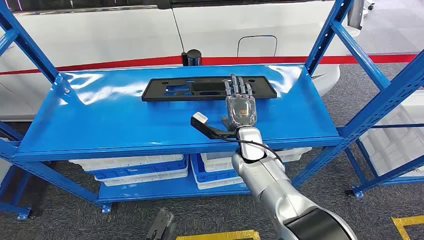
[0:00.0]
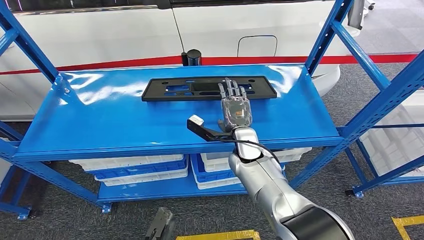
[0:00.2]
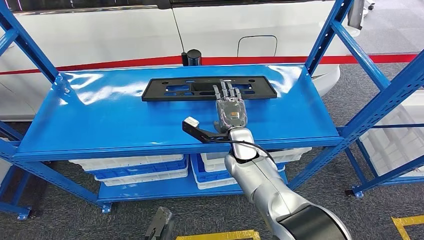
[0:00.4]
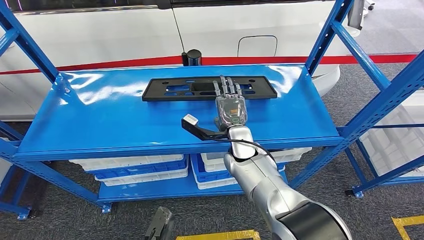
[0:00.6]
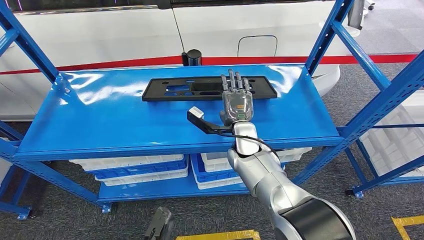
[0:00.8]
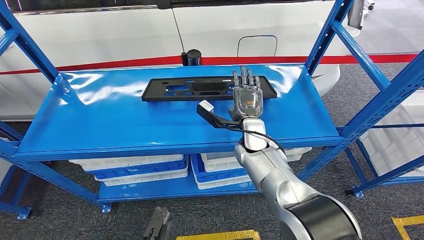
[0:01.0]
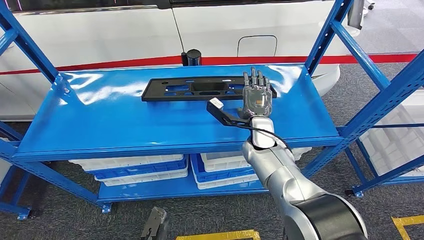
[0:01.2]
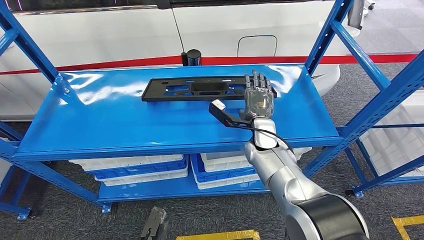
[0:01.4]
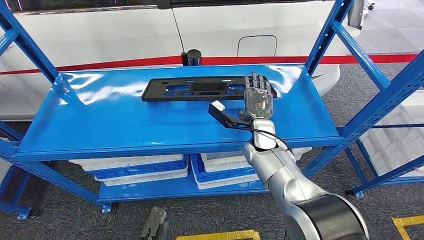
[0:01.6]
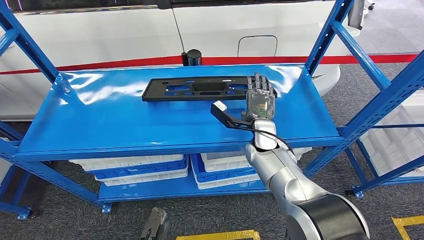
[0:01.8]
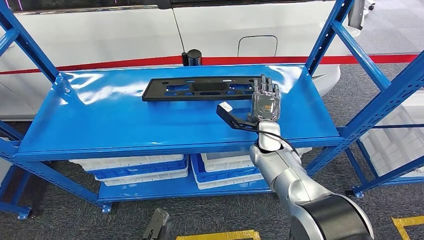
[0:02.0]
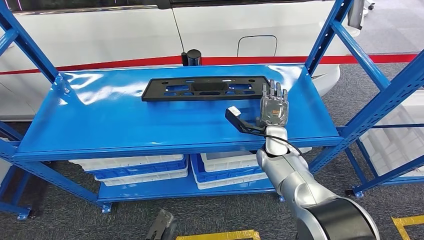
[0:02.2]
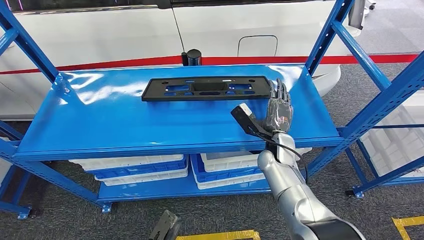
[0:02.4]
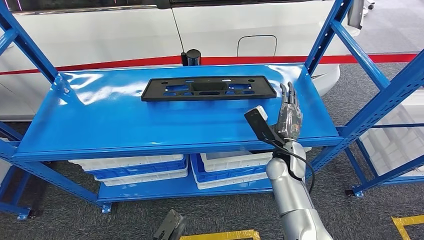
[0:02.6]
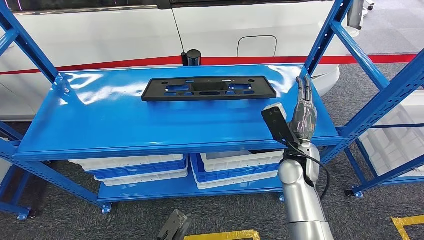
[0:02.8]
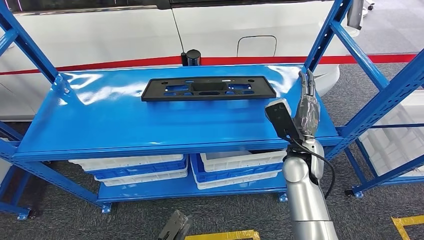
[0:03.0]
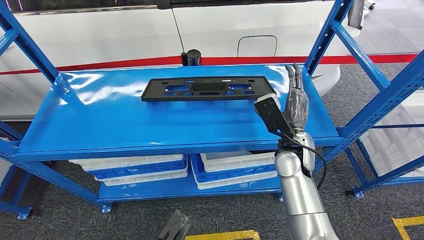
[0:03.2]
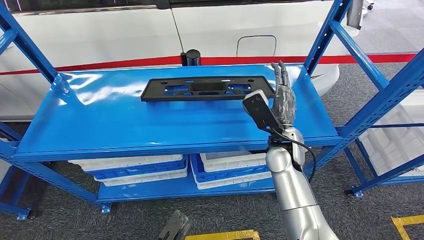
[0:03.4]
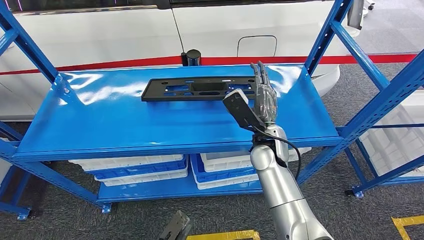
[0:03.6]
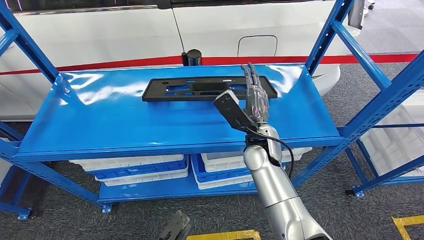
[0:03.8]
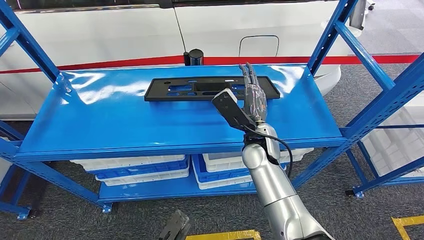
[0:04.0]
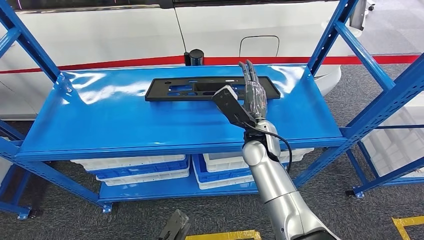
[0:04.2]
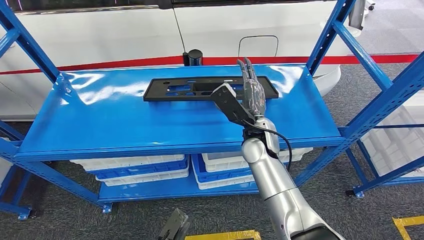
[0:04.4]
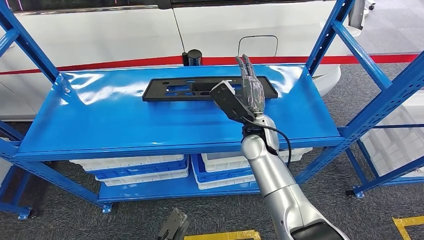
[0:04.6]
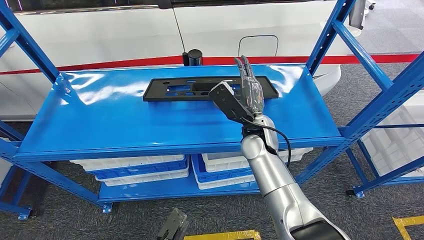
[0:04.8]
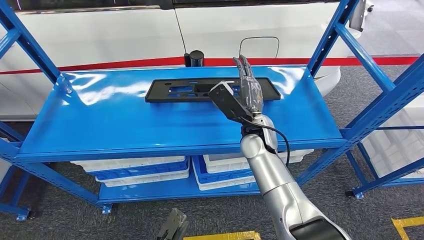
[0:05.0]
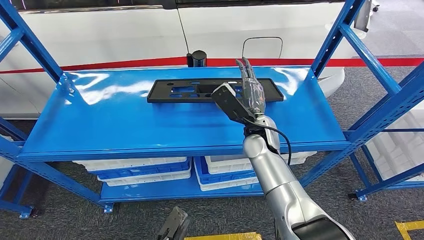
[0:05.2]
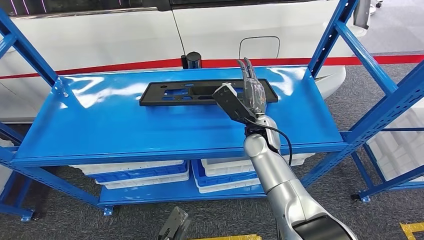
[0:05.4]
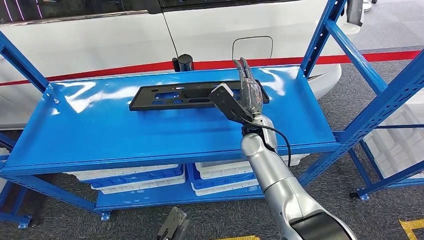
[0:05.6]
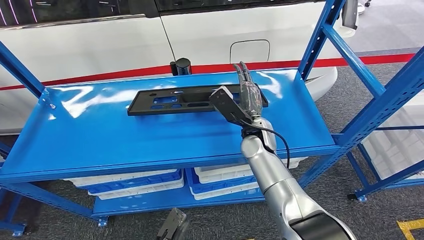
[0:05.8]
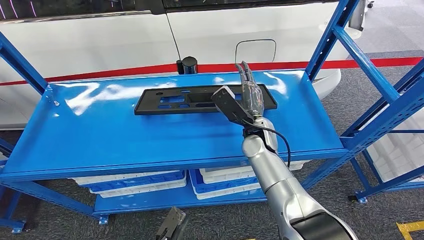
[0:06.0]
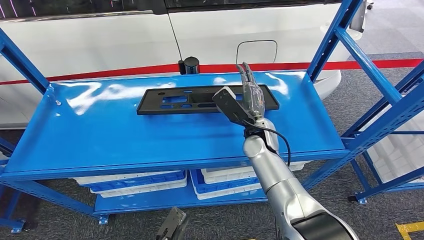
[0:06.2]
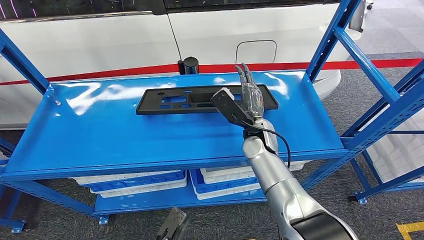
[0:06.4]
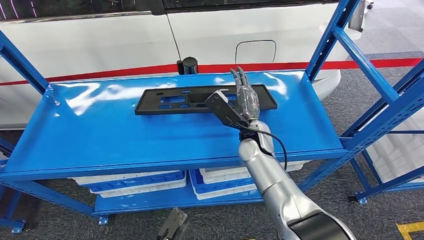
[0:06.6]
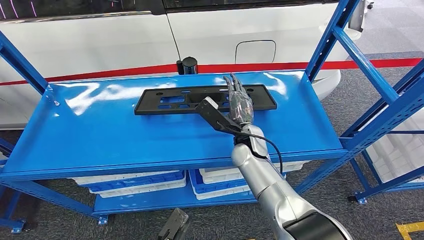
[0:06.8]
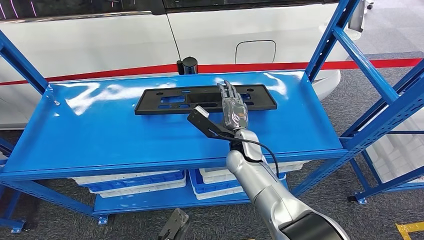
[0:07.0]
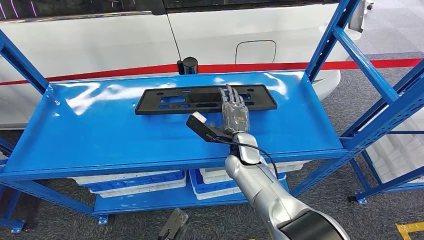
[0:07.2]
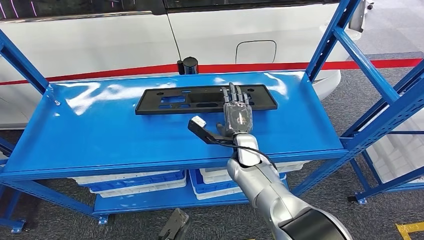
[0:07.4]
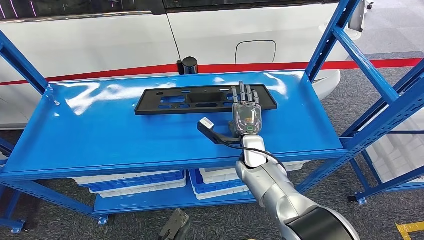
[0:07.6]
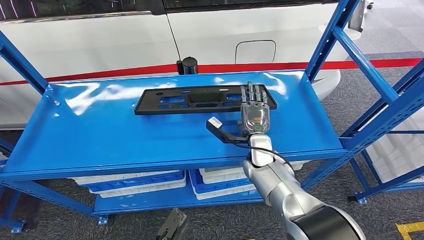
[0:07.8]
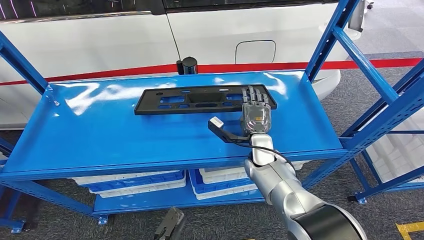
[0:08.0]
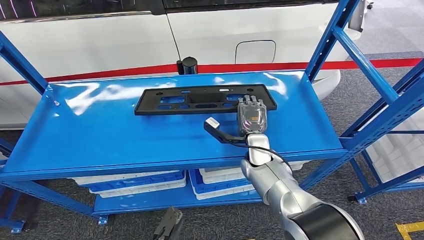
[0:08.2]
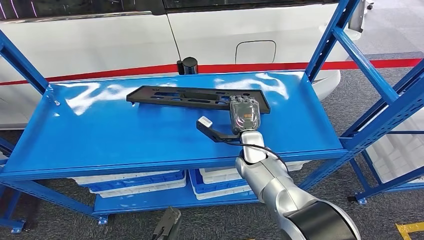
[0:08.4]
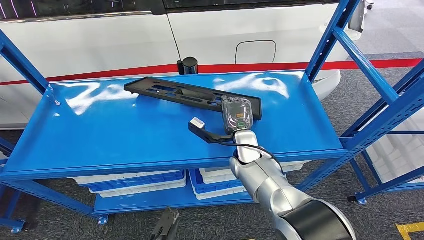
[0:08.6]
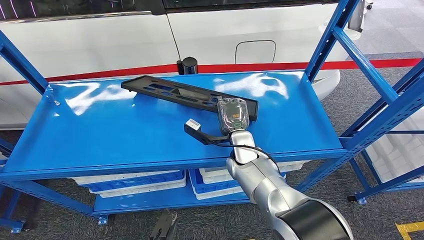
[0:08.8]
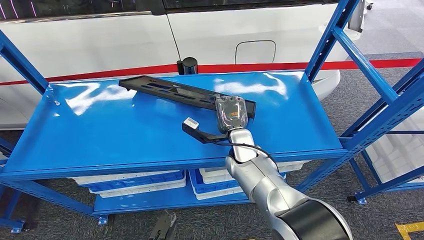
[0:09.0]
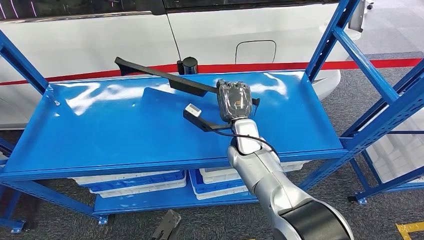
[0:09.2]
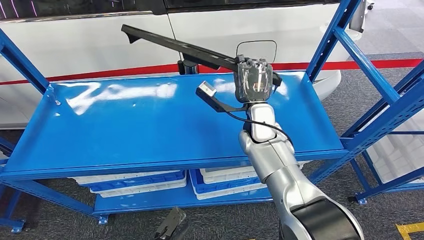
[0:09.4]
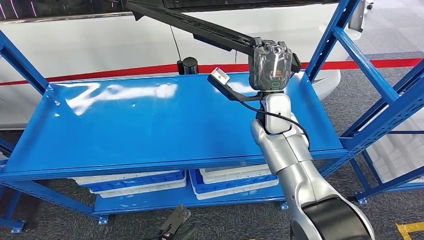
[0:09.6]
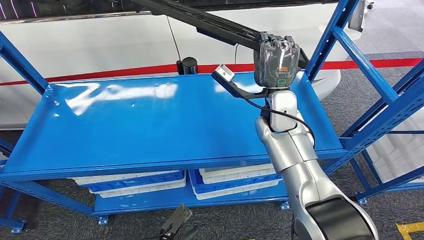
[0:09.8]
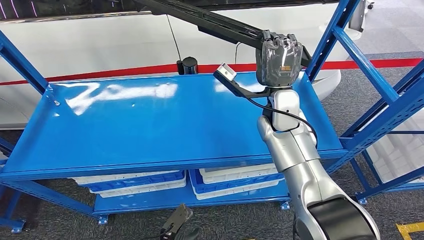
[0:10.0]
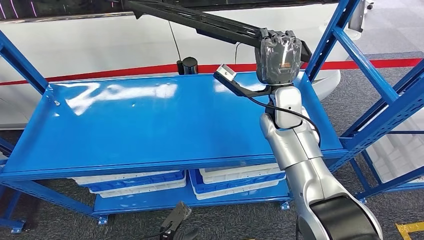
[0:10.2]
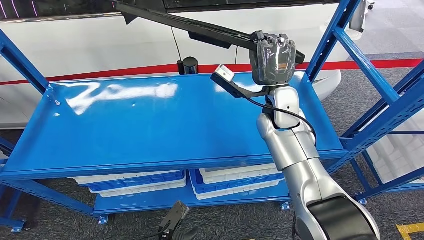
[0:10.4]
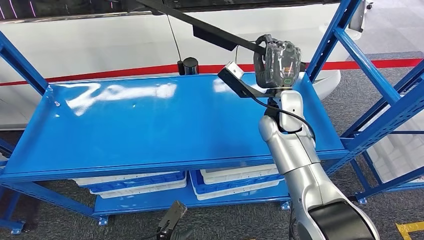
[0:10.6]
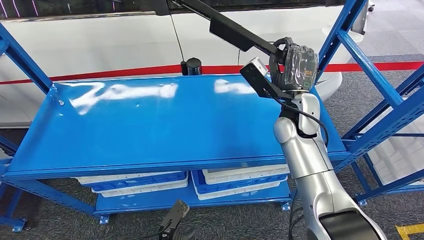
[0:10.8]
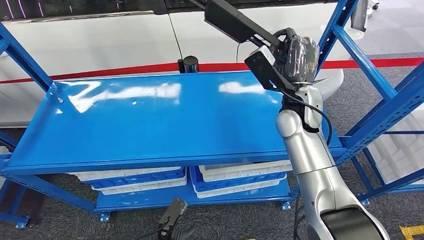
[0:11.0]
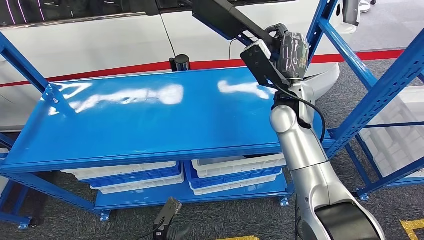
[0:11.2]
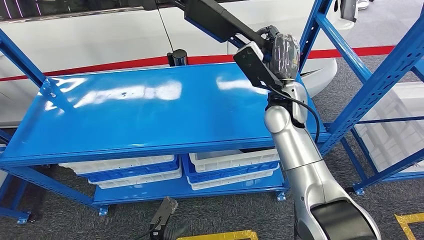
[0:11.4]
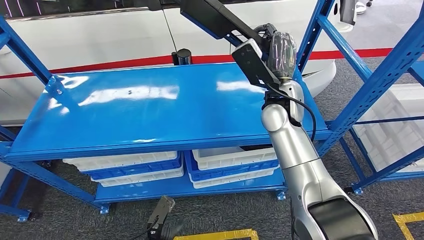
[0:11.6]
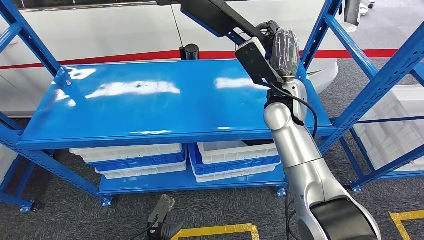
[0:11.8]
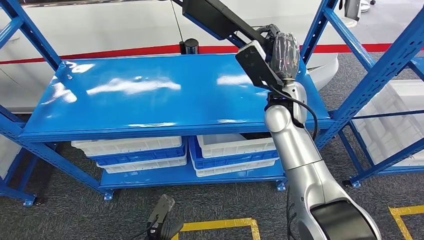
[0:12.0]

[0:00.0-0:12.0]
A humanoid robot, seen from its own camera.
Step, 0:00.0 to 0:10.4: Pick up the large material from the shelf.
0:01.6 to 0:03.0: The right hand heads backward and to the right, covering about 10 cm.
0:03.0 to 0:04.4: The right hand travels to the left by about 10 cm.
0:06.0 to 0:07.6: The right hand heads downward, covering approximately 5 cm.
0:07.6 to 0:09.0: The hands make only small movements.

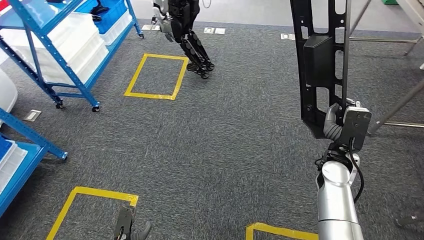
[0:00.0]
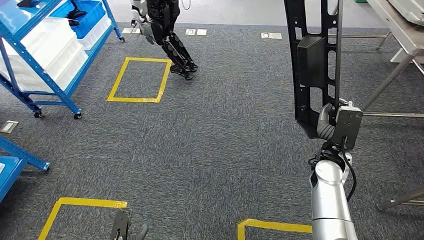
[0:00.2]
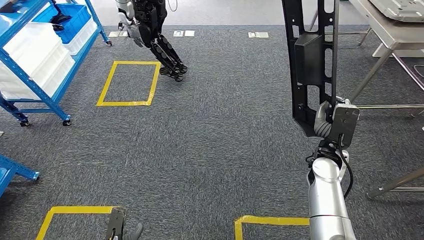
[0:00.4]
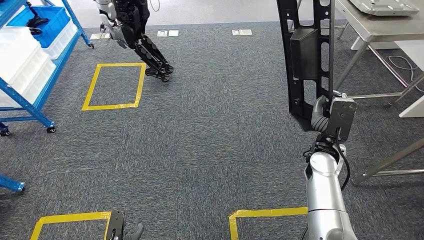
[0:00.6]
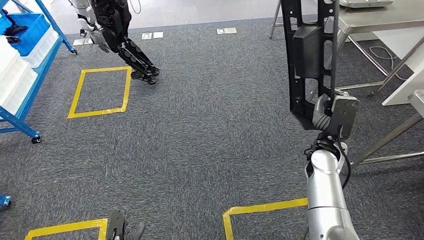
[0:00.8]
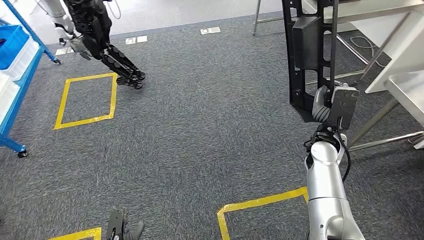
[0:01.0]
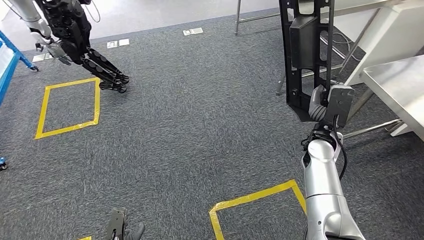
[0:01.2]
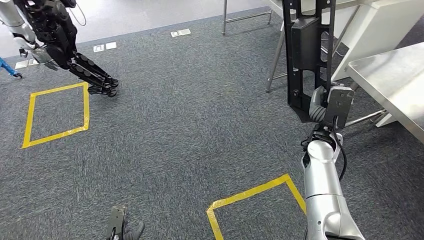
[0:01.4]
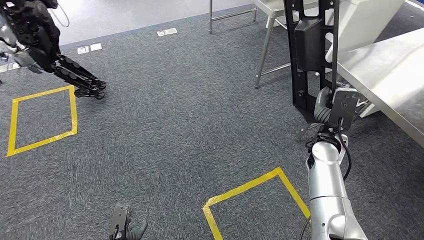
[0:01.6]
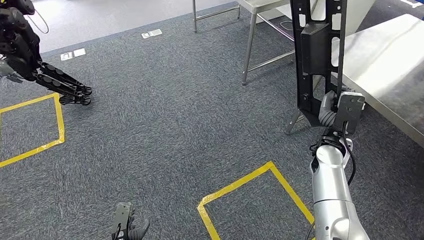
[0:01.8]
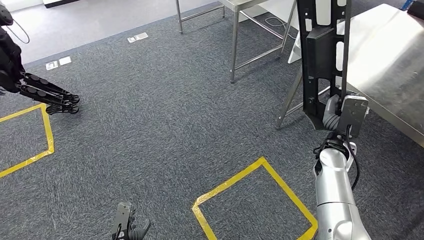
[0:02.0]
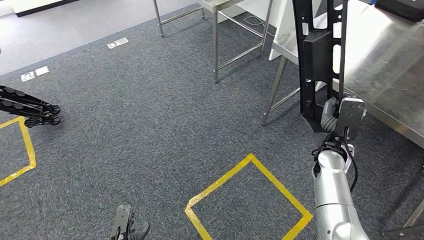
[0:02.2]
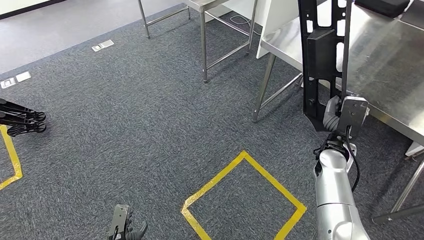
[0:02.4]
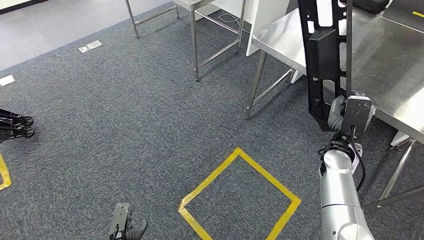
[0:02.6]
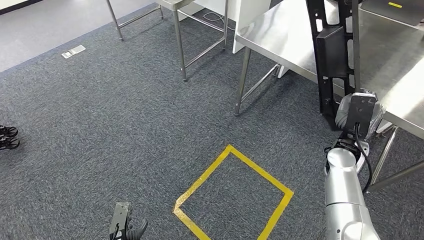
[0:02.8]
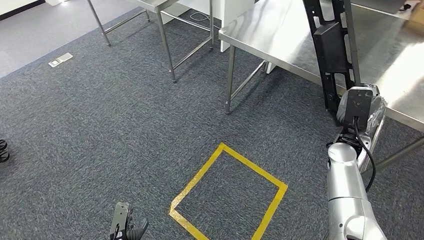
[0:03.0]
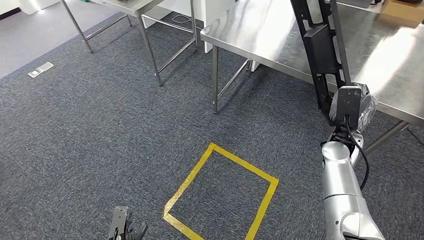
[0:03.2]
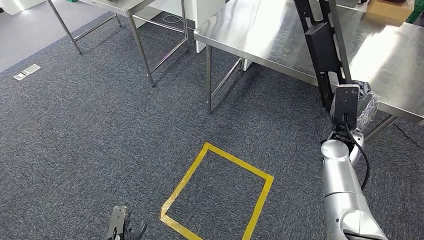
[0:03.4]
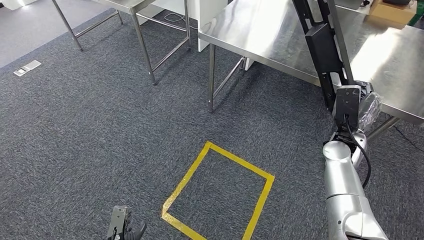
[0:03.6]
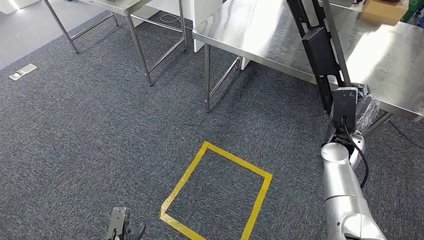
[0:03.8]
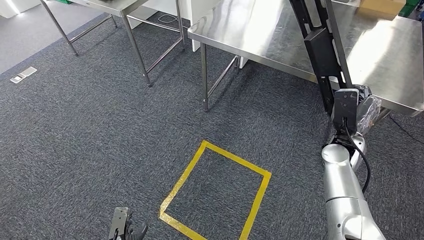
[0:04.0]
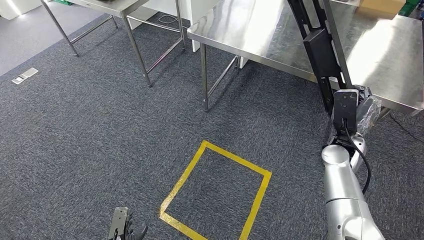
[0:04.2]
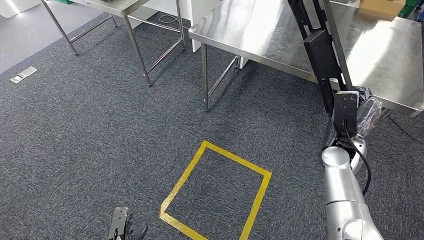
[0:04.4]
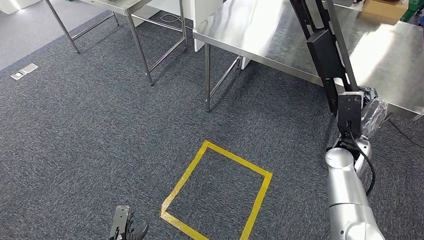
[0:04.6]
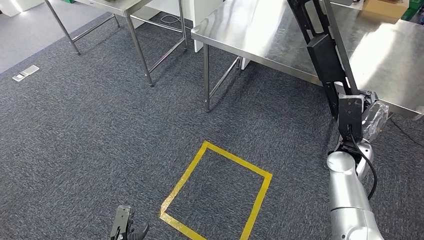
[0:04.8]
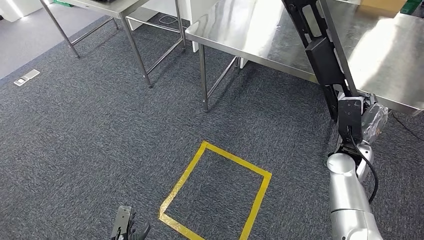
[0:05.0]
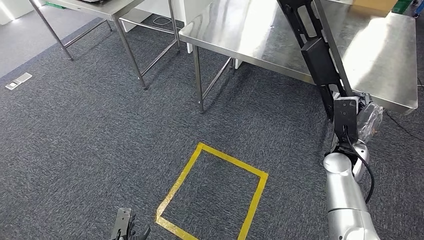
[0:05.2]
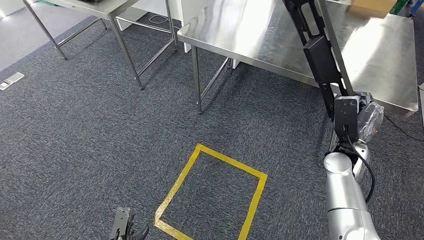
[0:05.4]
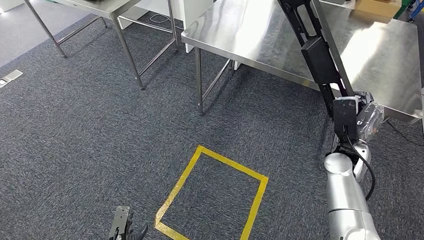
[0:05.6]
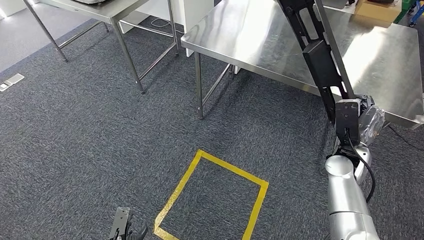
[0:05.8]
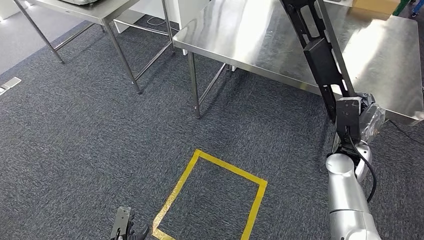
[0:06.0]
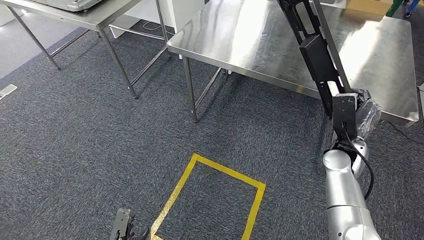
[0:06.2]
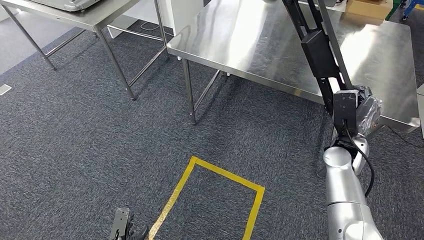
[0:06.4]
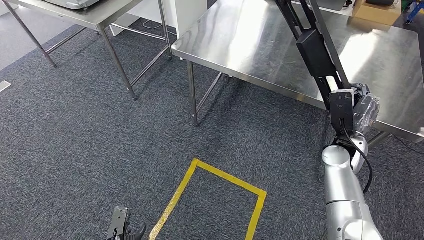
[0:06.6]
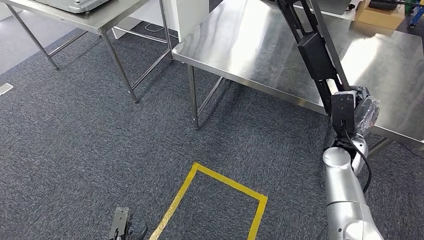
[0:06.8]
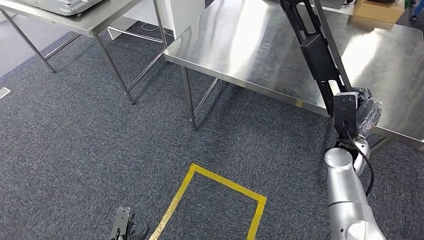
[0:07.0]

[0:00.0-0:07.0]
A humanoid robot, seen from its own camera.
Step, 0:00.0 to 0:05.2: Move the large material to the front of the workbench.
